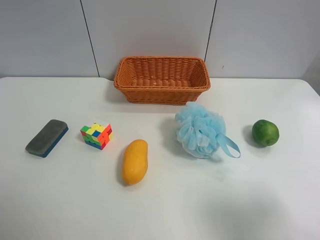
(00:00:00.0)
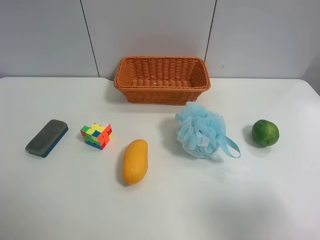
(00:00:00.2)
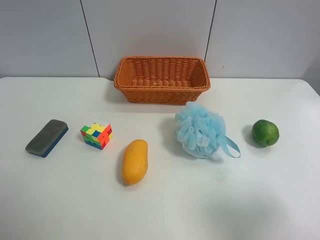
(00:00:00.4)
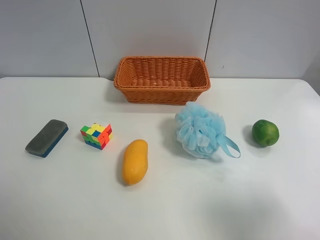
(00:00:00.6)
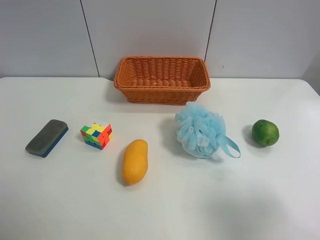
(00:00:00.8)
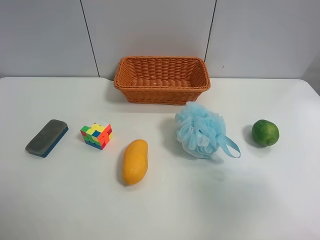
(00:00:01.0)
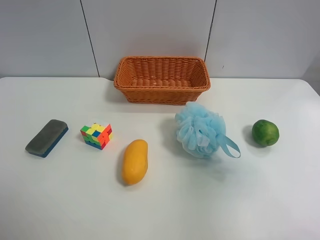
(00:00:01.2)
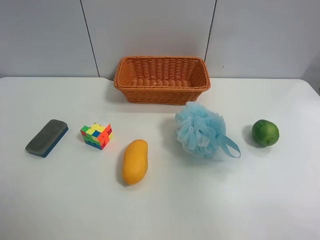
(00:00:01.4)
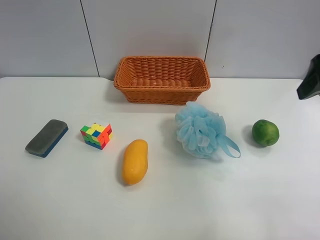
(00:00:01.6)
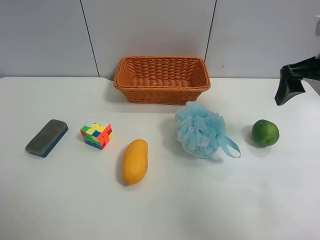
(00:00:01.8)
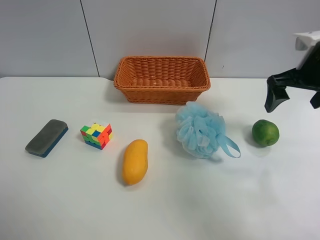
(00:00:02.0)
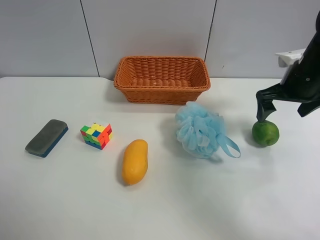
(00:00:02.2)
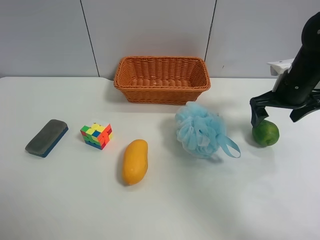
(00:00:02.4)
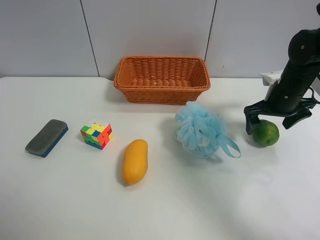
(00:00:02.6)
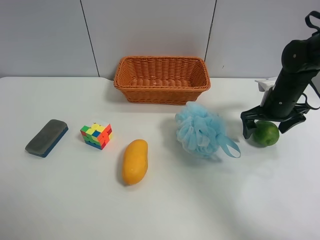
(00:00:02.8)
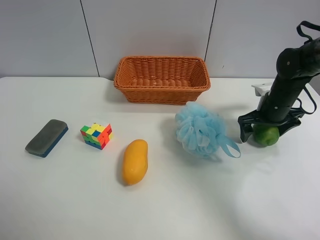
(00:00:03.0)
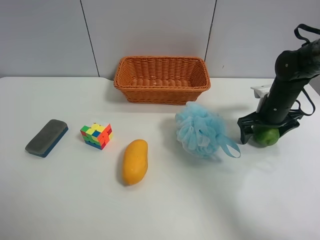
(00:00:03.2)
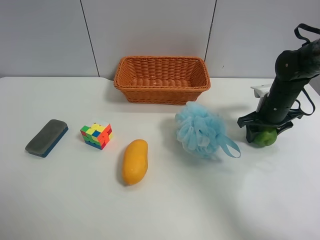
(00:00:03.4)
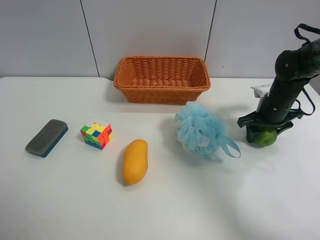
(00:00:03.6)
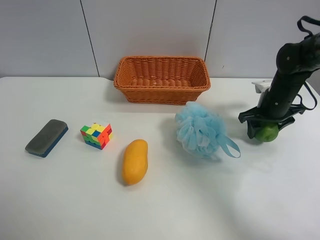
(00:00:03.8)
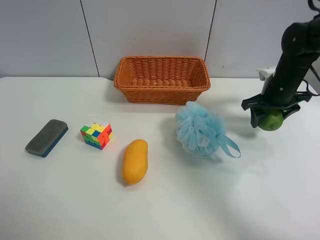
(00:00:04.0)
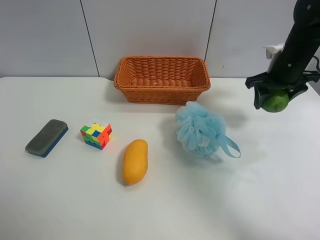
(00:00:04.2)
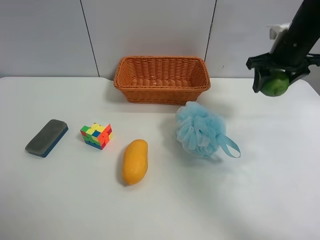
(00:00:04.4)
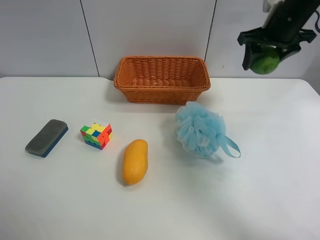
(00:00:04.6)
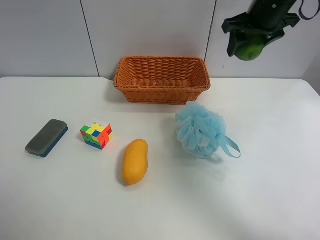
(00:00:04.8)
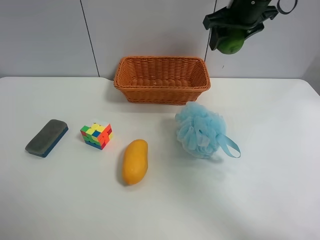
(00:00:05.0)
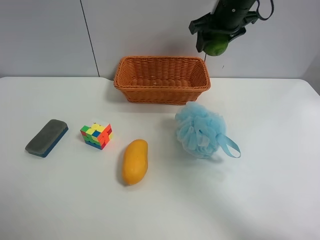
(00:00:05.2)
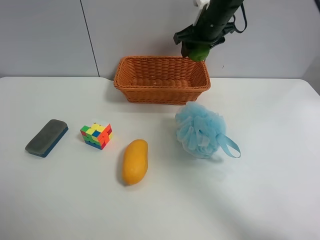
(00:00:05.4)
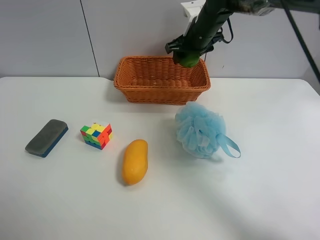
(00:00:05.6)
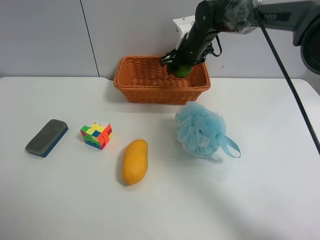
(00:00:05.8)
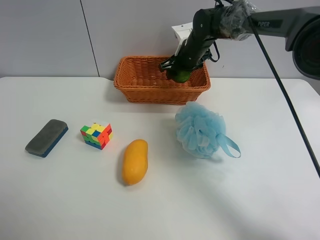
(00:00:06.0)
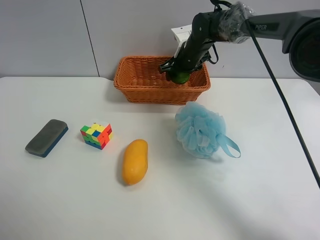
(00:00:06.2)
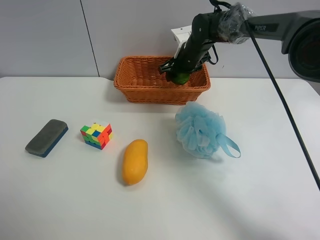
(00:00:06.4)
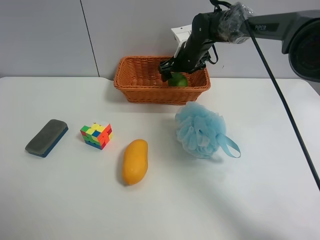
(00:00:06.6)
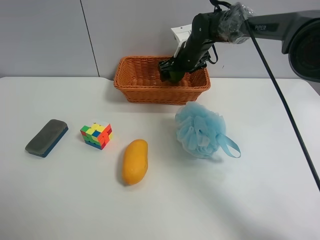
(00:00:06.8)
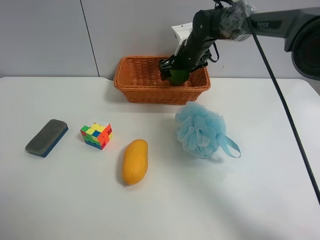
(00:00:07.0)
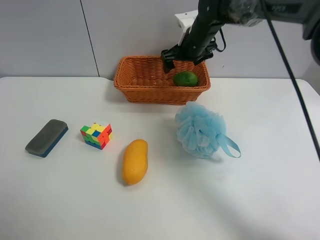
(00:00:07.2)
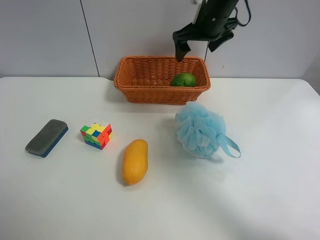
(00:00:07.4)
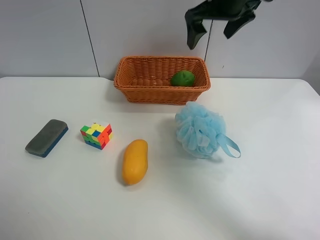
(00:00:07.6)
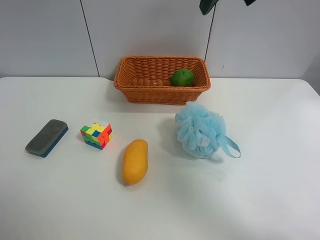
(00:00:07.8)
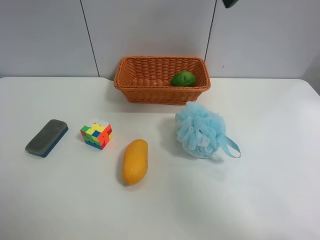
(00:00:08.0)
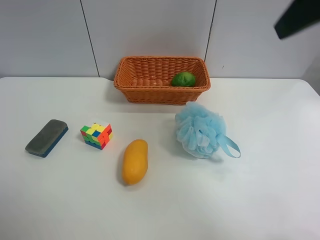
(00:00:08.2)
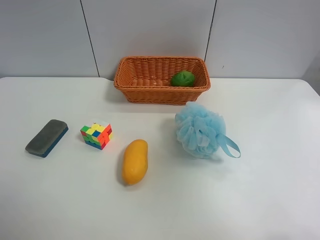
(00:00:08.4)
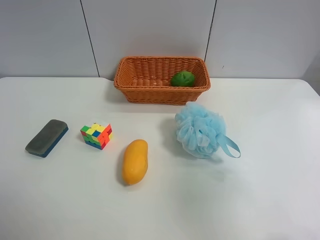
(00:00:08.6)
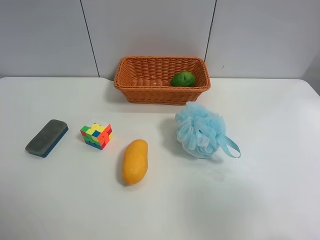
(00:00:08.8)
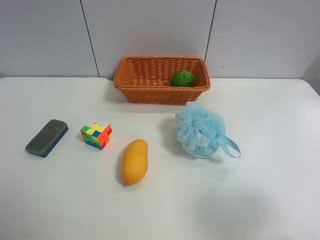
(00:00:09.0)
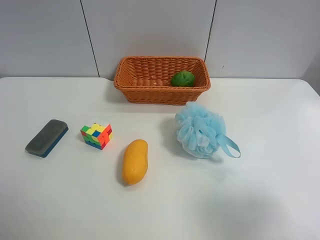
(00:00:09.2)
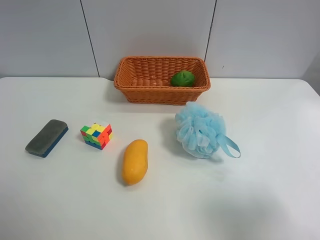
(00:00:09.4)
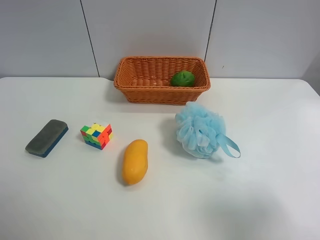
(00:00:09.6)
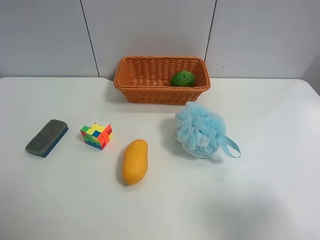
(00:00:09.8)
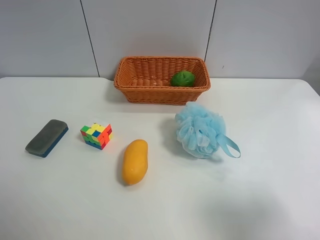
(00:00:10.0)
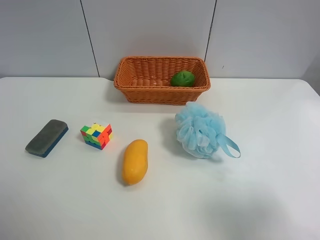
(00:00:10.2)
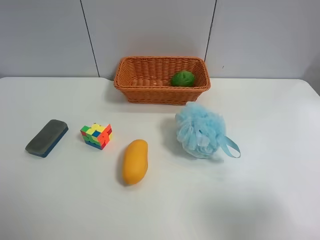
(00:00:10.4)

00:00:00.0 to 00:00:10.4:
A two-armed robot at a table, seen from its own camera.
Task of the whole recording: Randomly grab green lemon or mangoes from the table and put them in a basket.
Step, 00:00:00.0 to 00:00:03.4: Grasp the Lemon with the right gripper.
Step, 00:00:03.6 to 00:00:07.2: Place the Lemon into the basket with the right gripper.
00:00:00.0 to 00:00:01.4: The right gripper goes some 20 cm forward and upward.
00:00:01.4 to 00:00:03.0: The right gripper shifts some 30 cm downward and forward.
00:00:03.0 to 00:00:04.4: The right gripper shifts about 15 cm upward, and closes.
00:00:04.4 to 00:00:06.0: The right gripper travels to the left, forward and downward by about 20 cm.
00:00:06.0 to 00:00:07.4: The right gripper travels upward and backward by roughly 10 cm, and opens.
00:00:07.4 to 00:00:09.0: The right gripper shifts about 40 cm backward.

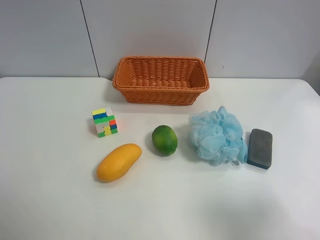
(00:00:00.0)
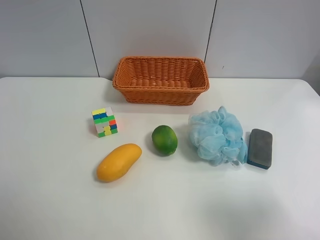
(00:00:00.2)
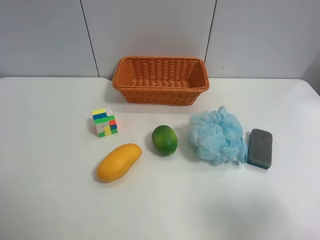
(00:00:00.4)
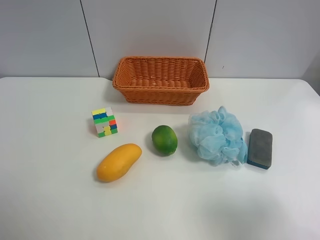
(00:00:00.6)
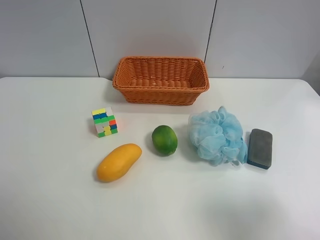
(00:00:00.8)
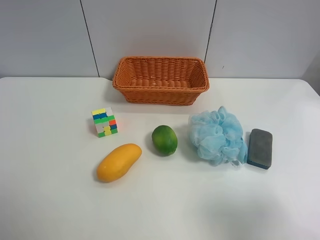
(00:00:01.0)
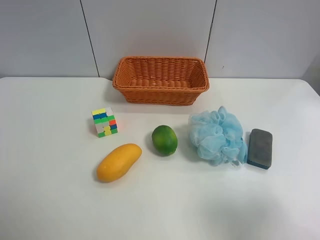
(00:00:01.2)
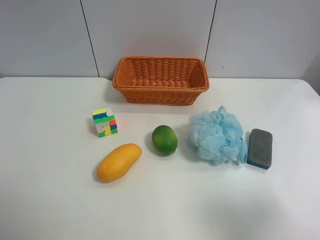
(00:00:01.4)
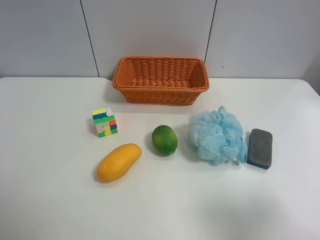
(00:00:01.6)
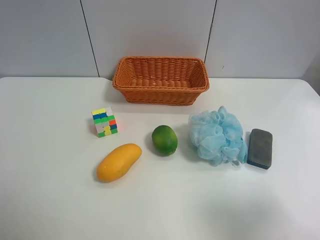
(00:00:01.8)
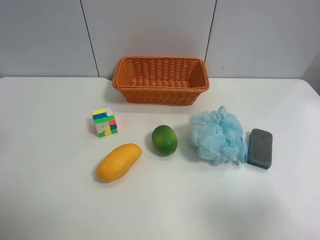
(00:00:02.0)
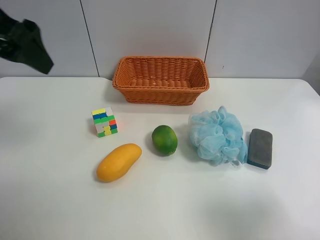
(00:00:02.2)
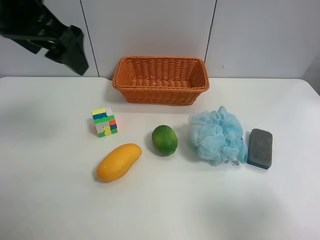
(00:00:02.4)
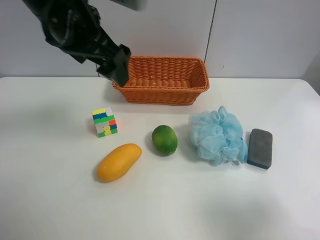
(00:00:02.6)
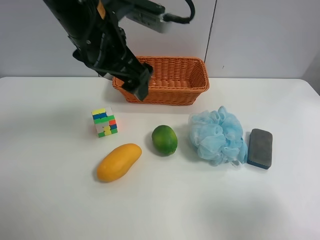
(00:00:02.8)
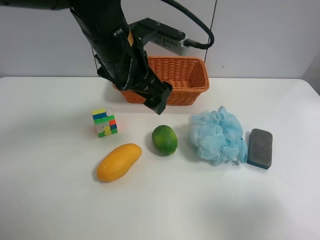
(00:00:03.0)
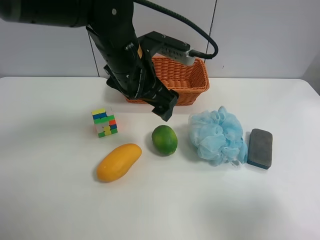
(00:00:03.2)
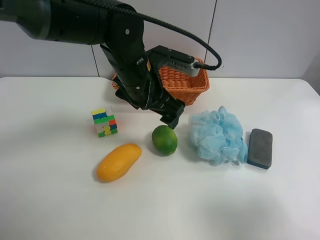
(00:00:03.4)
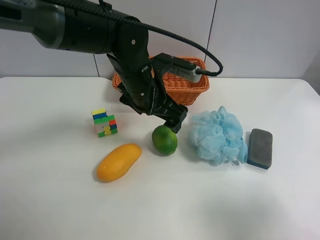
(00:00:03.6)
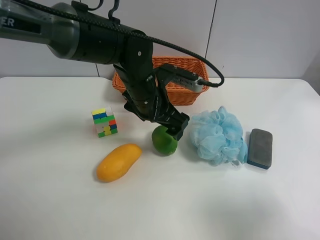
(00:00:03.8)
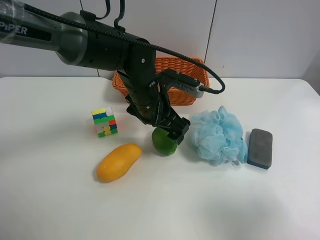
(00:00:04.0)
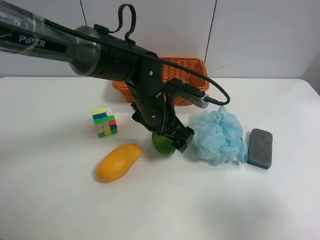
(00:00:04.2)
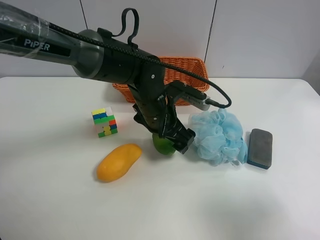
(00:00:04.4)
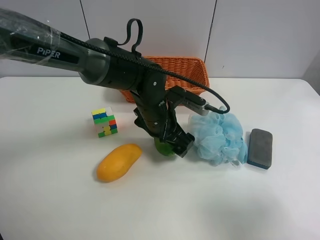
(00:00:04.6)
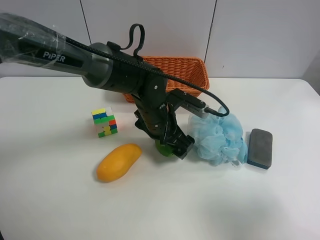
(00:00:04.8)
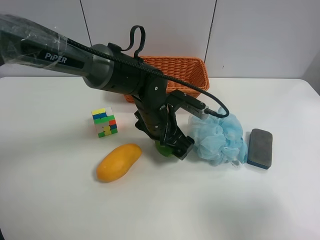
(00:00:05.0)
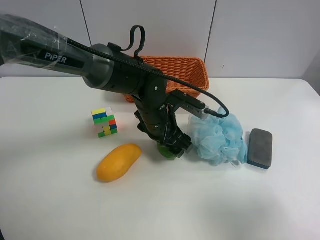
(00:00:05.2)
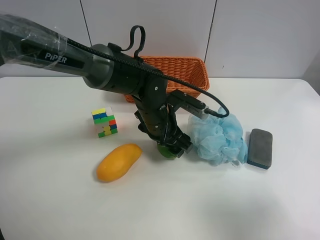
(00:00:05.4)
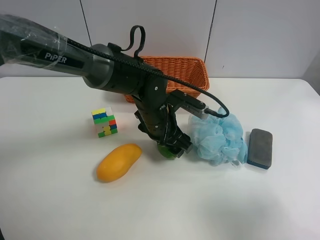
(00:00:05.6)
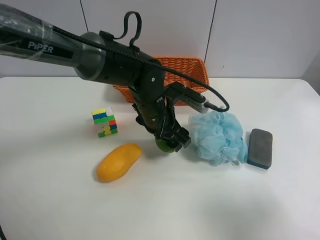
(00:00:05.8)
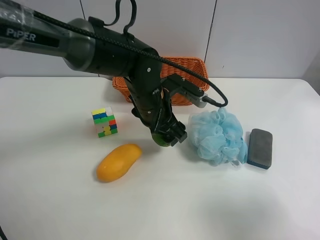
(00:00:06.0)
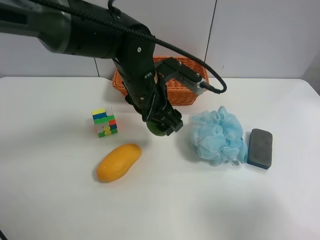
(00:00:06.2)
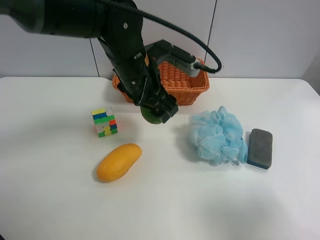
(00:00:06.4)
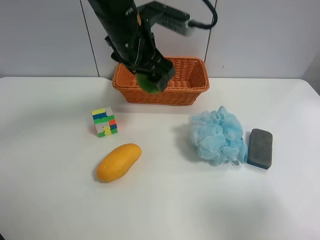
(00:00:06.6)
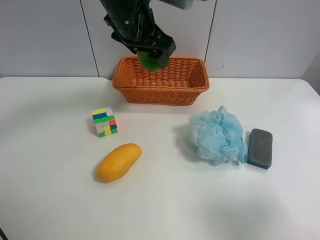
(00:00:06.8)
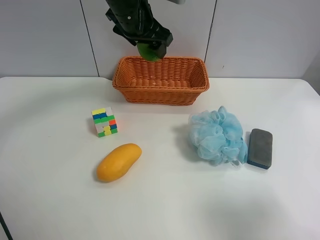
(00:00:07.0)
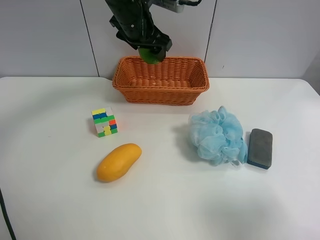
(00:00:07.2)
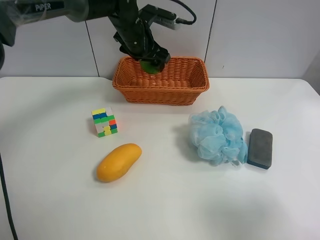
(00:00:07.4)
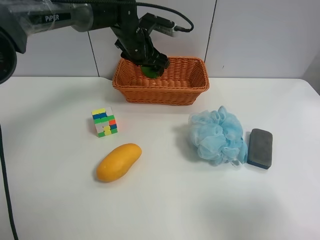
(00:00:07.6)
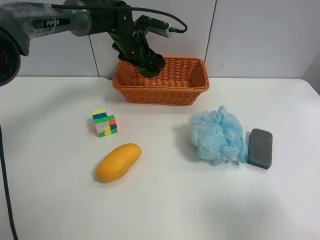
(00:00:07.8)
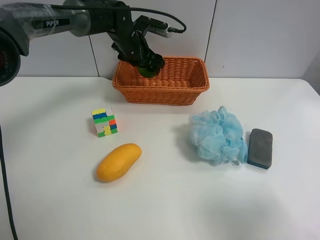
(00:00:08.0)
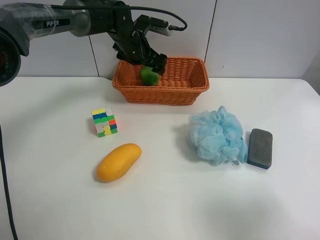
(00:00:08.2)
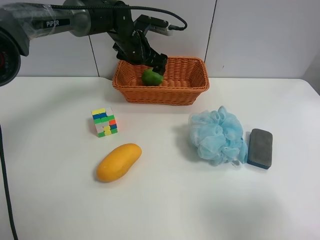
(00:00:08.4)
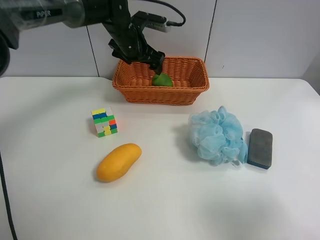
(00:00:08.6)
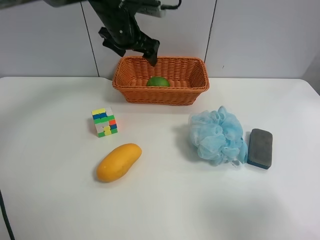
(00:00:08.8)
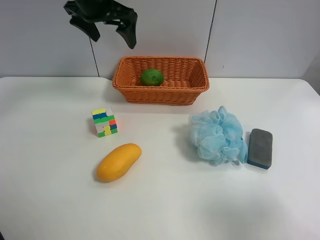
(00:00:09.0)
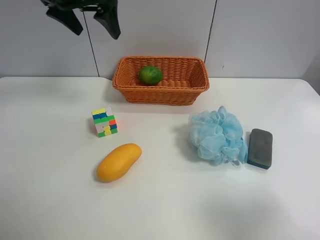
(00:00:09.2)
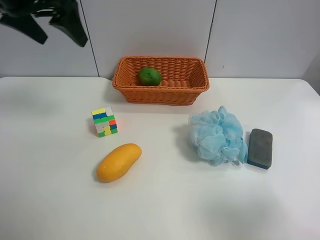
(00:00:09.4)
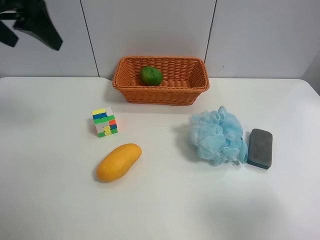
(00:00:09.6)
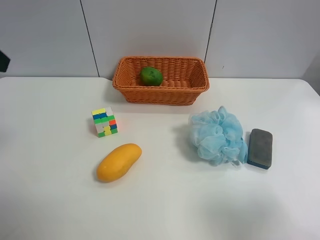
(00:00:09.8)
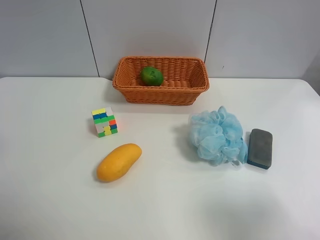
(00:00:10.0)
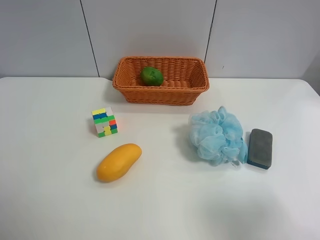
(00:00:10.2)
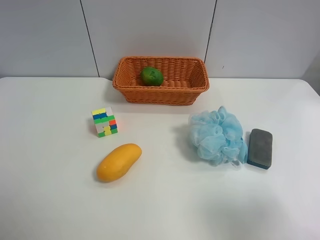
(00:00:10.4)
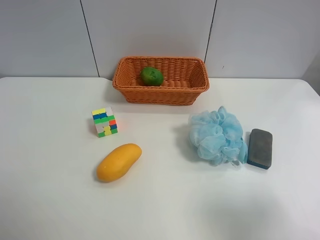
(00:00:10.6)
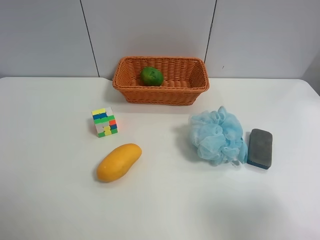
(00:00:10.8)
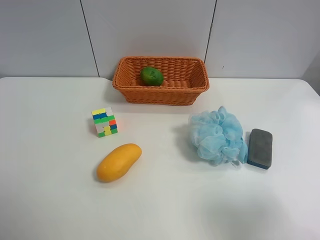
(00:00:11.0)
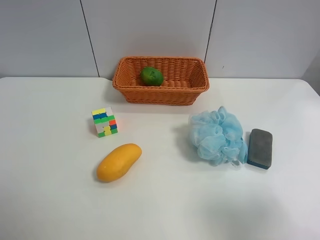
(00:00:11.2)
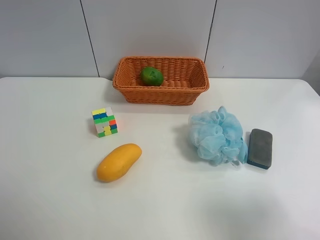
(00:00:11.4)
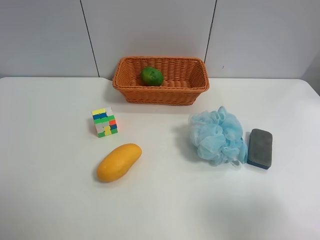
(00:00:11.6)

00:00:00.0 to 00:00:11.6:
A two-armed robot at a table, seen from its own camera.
Task of the whole recording: Randomly grab green lemon or mangoes from the table and put them in a basket.
Step, 00:00:00.0 to 00:00:05.2: Grasp the Lemon with the left gripper.
Step, 00:00:05.4 to 00:00:08.8: Place the Lemon into the basket with the left gripper.
00:00:01.4 to 00:00:02.8: The left gripper travels forward and to the right by some 35 cm.
00:00:02.8 to 00:00:04.4: The left gripper heads downward and to the right, covering roughly 20 cm.
00:00:04.4 to 00:00:05.8: The left gripper closes up.
00:00:05.8 to 00:00:07.2: The left gripper shifts approximately 20 cm forward and upward.
00:00:07.2 to 00:00:08.8: The left gripper travels downward and back again, some 5 cm each way, and opens up.
00:00:08.8 to 00:00:10.2: The left gripper shifts roughly 40 cm backward and to the left.
